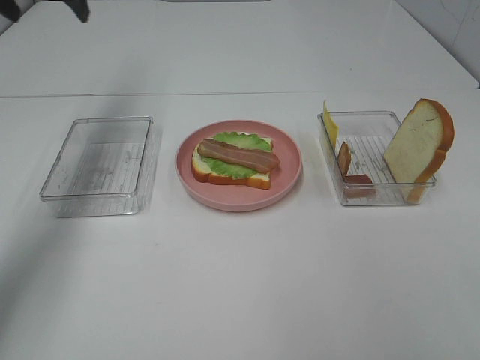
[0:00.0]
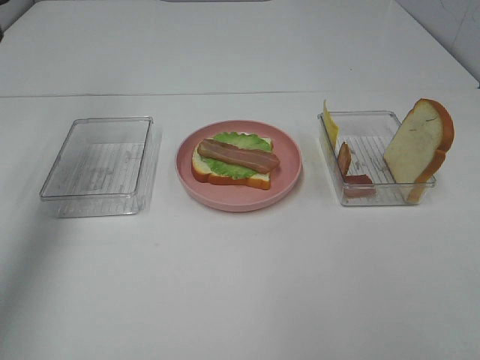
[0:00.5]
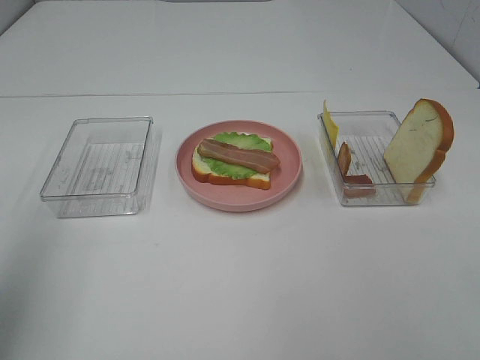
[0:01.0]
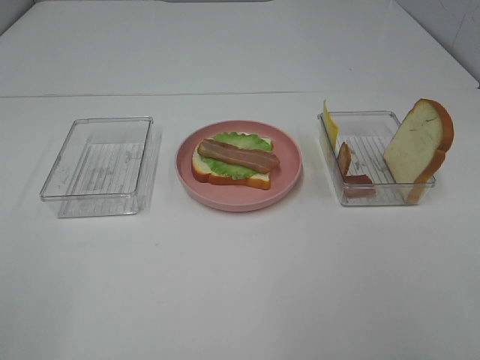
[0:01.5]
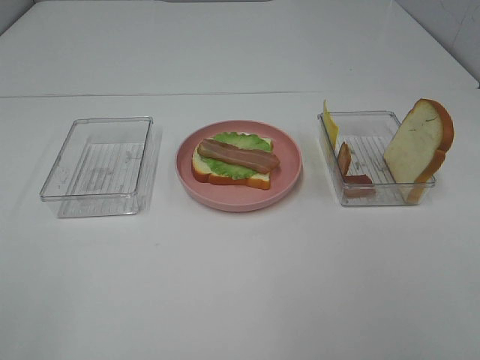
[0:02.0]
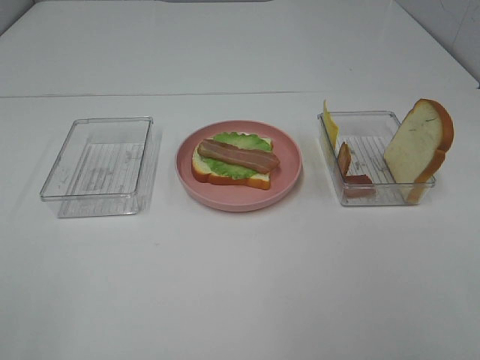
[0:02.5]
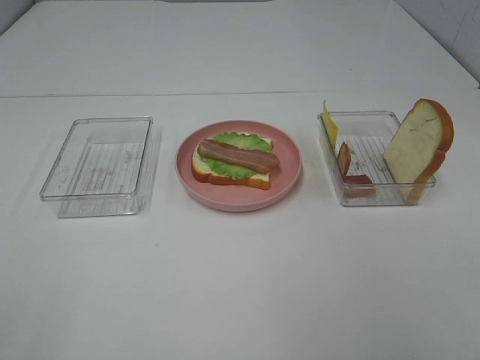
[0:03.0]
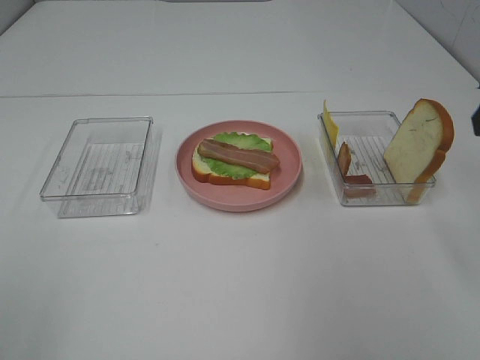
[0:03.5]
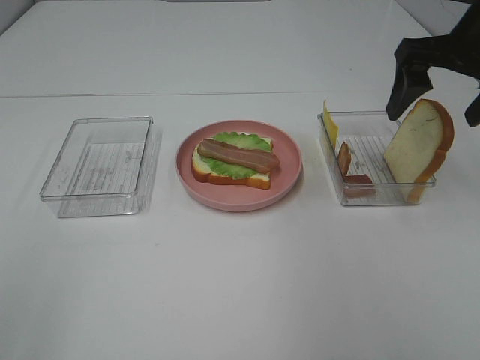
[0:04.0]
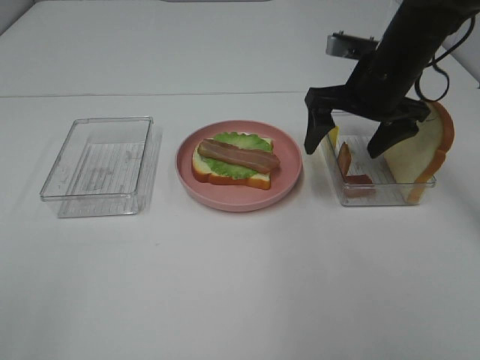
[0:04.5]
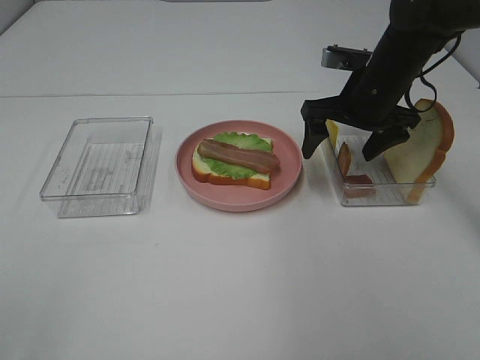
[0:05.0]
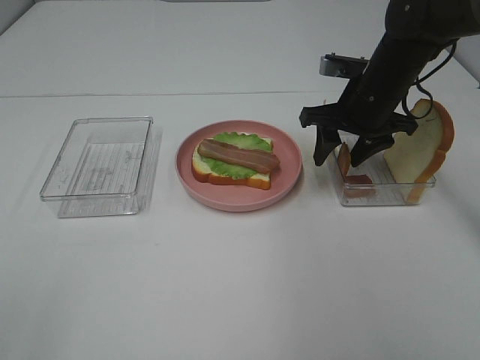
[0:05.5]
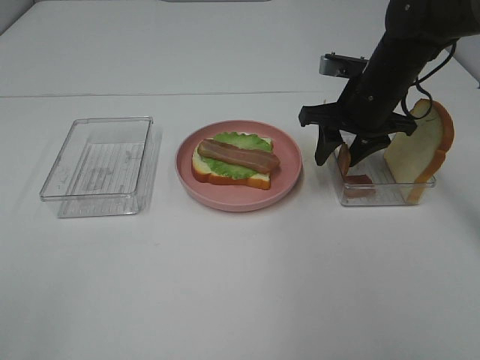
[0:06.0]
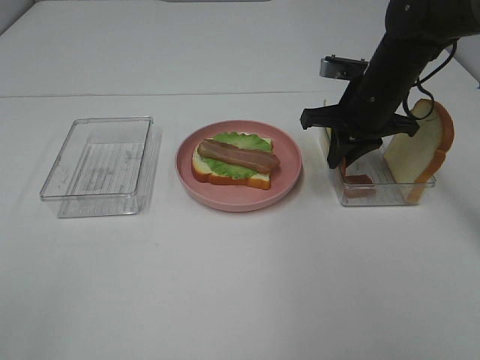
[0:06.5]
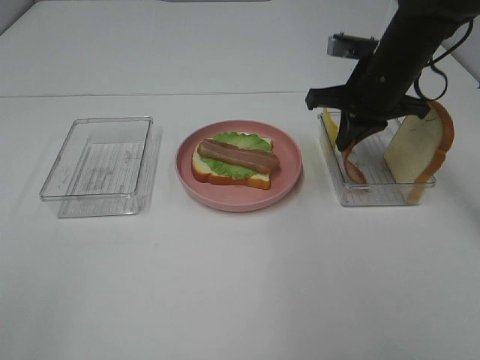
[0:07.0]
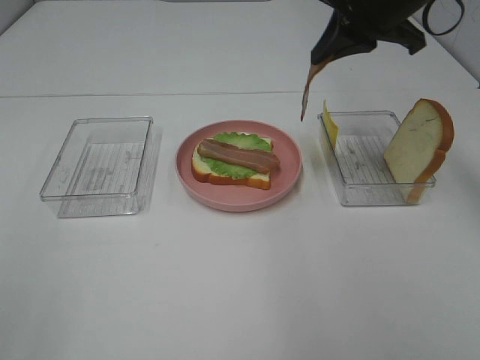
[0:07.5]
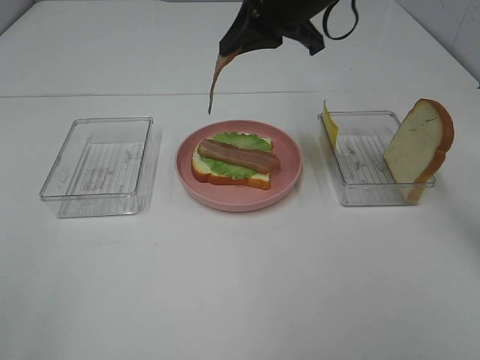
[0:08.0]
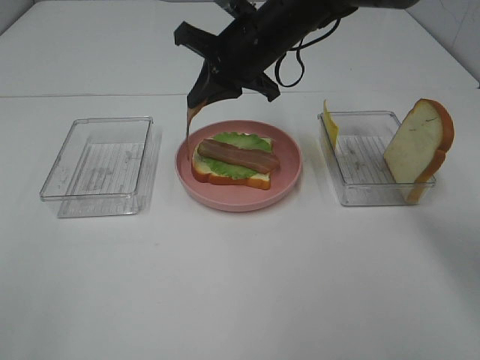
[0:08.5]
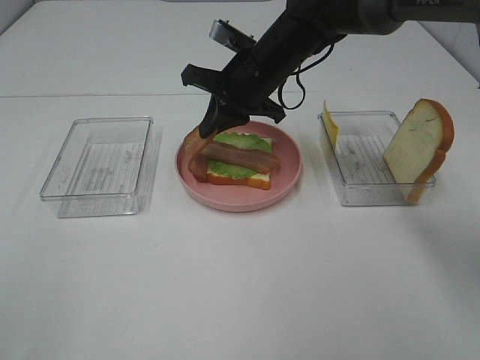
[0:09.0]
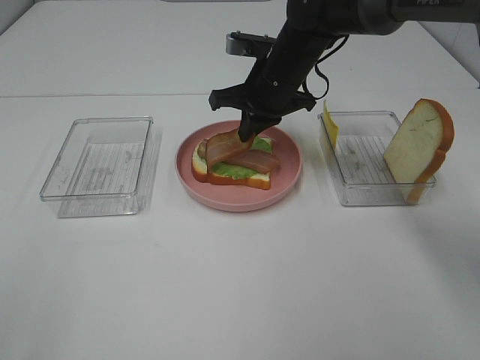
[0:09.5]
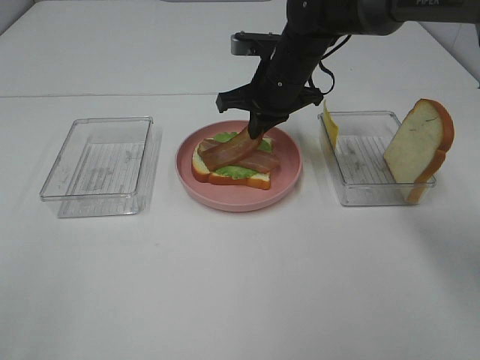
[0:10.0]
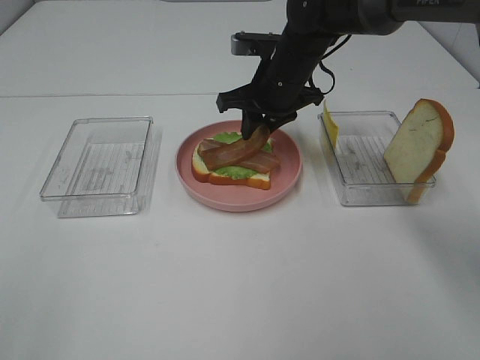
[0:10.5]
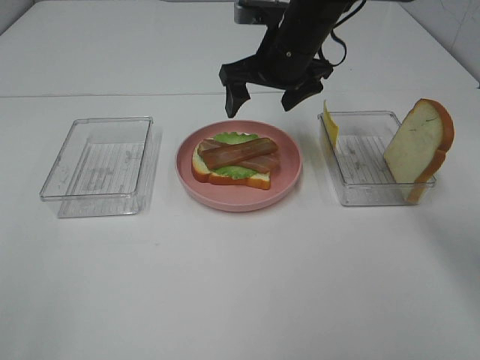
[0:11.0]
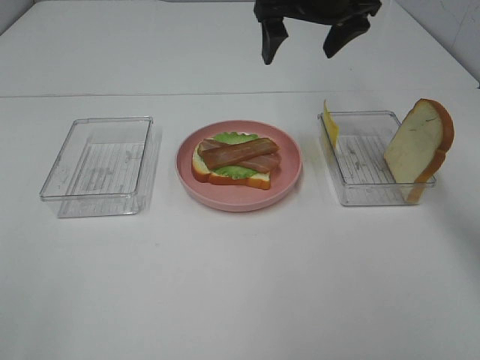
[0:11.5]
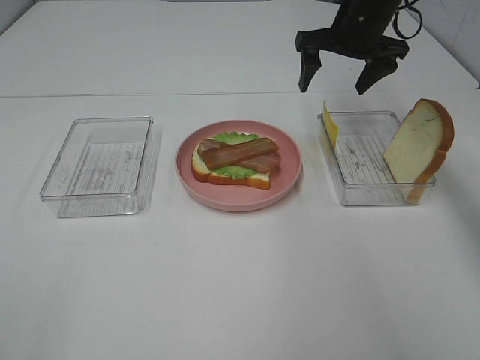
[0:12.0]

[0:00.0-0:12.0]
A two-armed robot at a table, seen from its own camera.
Task of the whole recording: Make sandwiches.
Step, 0:00.0 to 0:06.5: Right hand:grab the bacon.
Step, 0:07.0 to 0:11.0: Right hand:place bacon on bacon.
0:00.0 to 0:02.0: The left gripper is displaced backward by some 50 cm.
0:02.0 to 0:04.0: The right gripper is displaced forward by roughly 35 cm.
0:04.0 to 0:06.0: The right gripper shifts approximately 15 cm downward, forward and to the left, and closes up.
0:06.0 to 0:08.0: The right gripper shifts about 15 cm upward and to the left, and closes.
0:08.0 to 0:10.0: The right gripper goes some 10 cm downward.
0:10.0 to 0:12.0: The right gripper heads to the right and upward, covering some 10 cm, and opens its fingers.

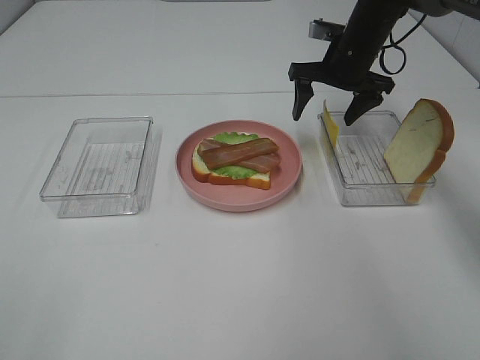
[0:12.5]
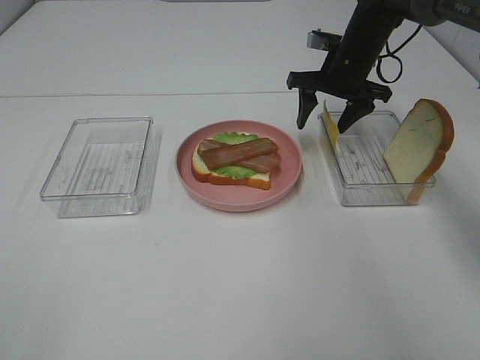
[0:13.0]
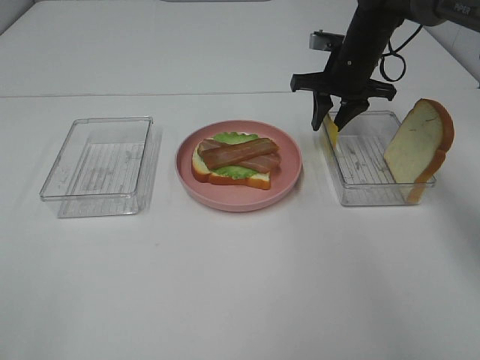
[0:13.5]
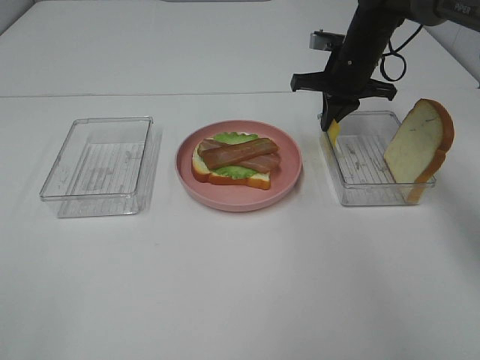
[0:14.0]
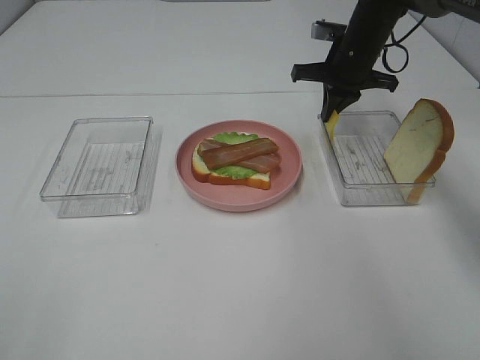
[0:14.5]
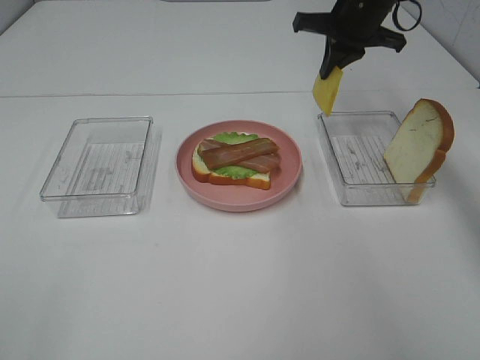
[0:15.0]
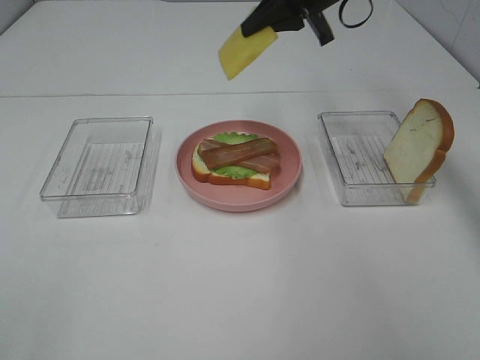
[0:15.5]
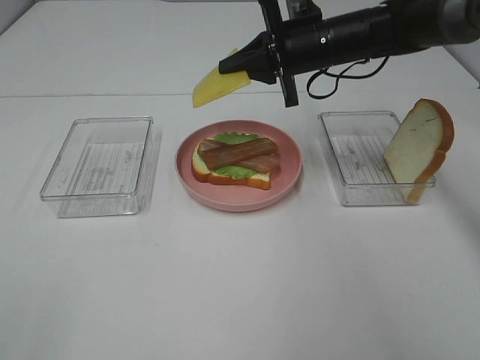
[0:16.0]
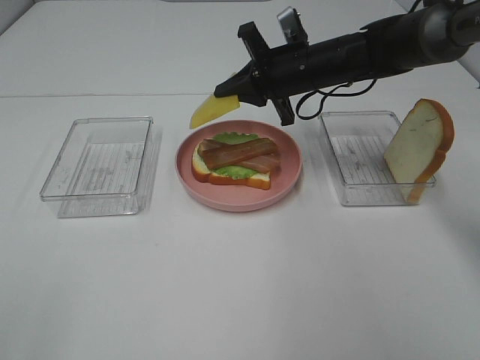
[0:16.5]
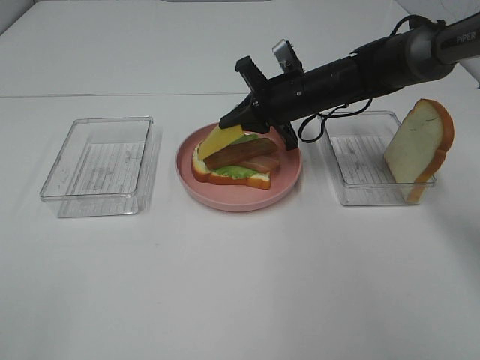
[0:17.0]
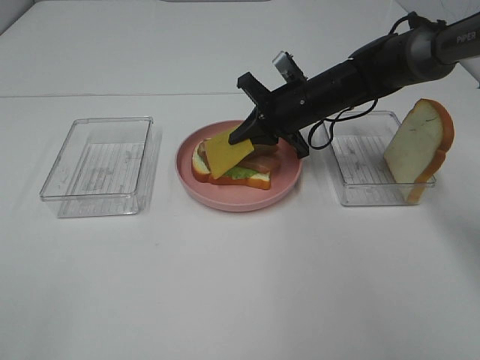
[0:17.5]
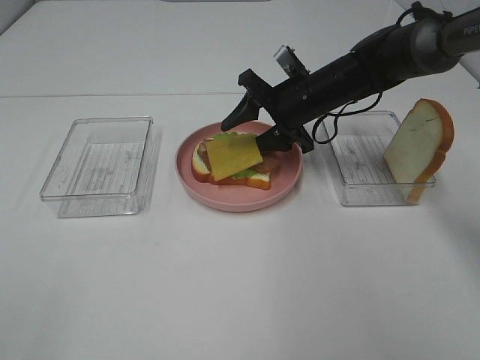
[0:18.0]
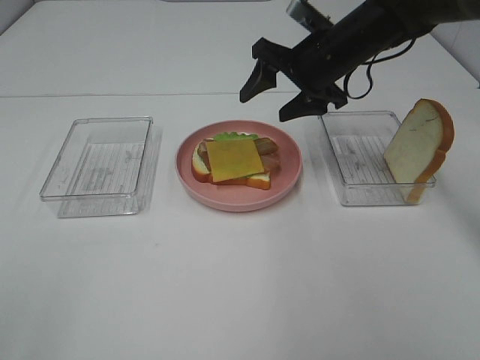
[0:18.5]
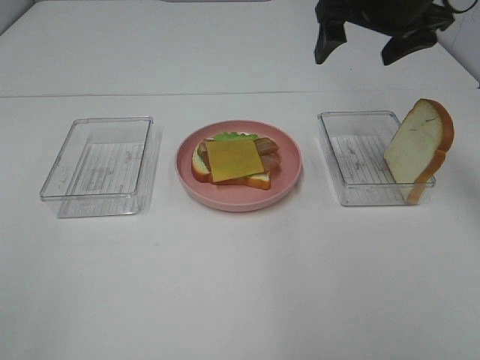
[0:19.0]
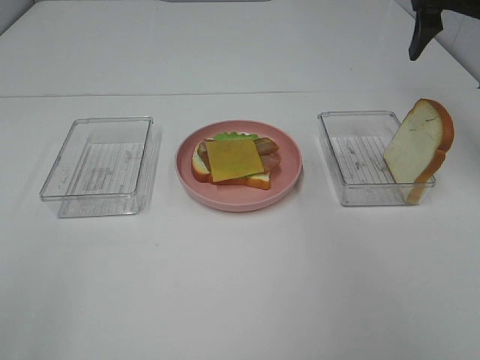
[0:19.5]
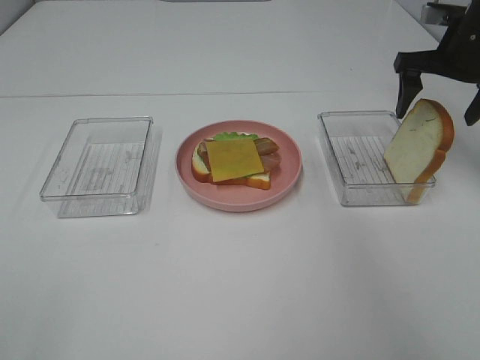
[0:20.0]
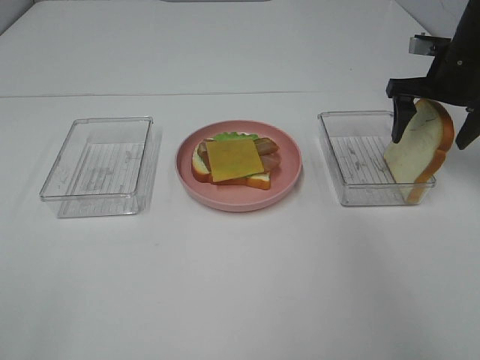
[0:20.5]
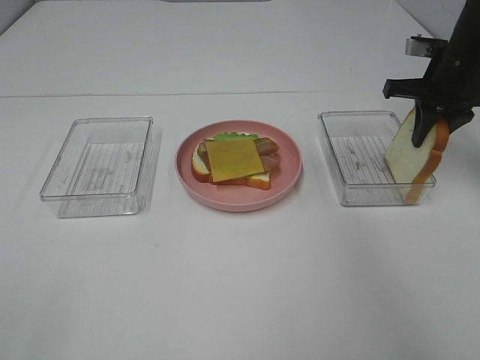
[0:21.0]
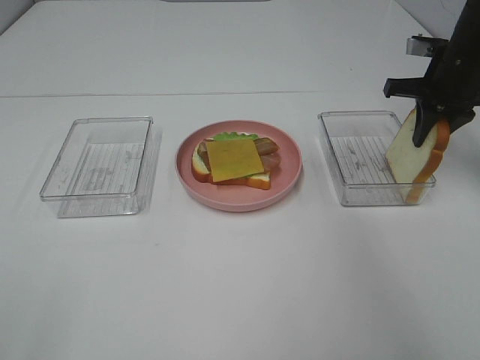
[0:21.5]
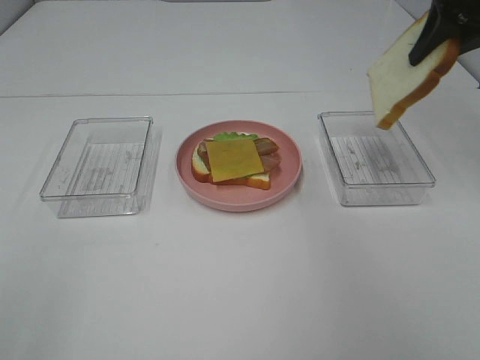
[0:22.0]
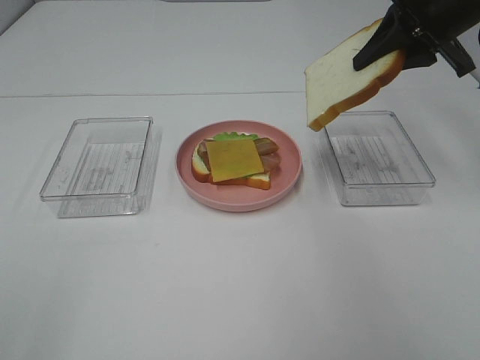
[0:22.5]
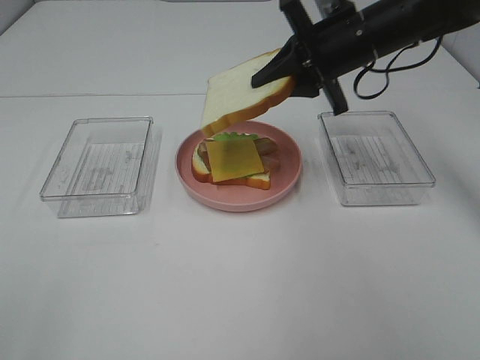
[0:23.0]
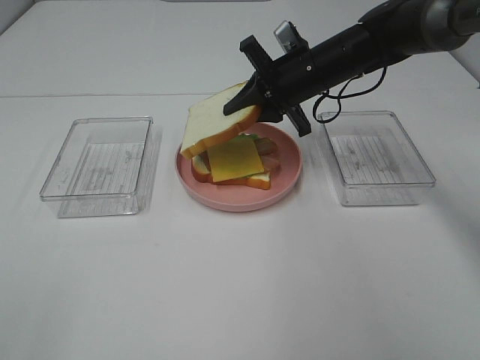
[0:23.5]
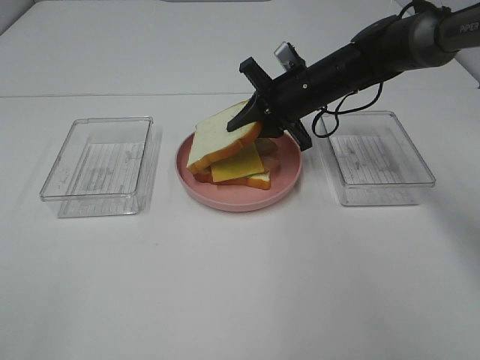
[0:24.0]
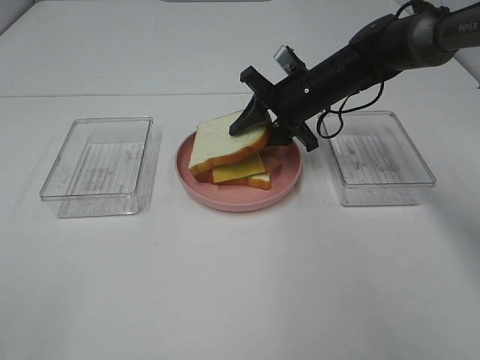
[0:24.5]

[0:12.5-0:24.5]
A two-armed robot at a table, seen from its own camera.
Task of the whole recording: Make sandwiches.
Step, 0:14.5 to 0:18.0: Right hand:place the cheese slice on top of the bacon.
Step, 0:18.5 to 0:20.5: Right hand:grab the bread slice.
0:12.5 to 0:14.5: The right gripper closes up.
0:14.5 to 0:16.5: The right gripper shifts about 10 cm to the left and backward, and moves approximately 10 cm upward and comes back.
0:16.5 to 0:18.5: The right gripper shifts by some 5 cm, and opens its fingers.
0:18.5 to 0:20.5: The right gripper heads to the right, covering some 15 cm.
0:20.5 to 0:22.5: The right gripper travels upward and to the left by about 10 cm, and closes its fingers.
0:22.5 to 0:24.5: The right gripper shifts approximately 20 cm downward, to the left and forward.

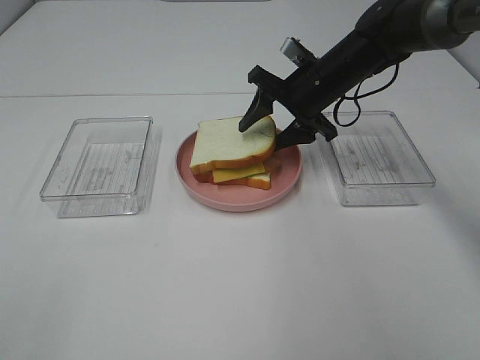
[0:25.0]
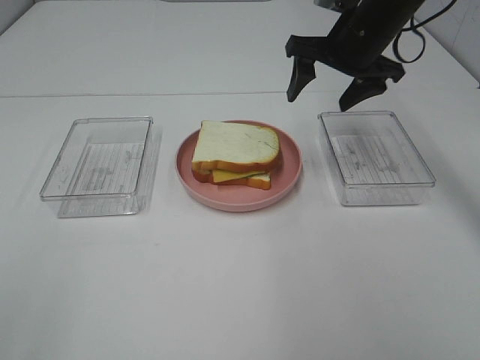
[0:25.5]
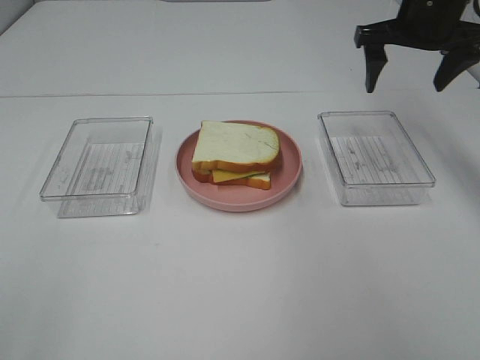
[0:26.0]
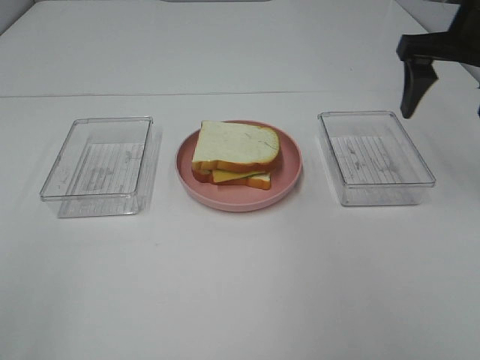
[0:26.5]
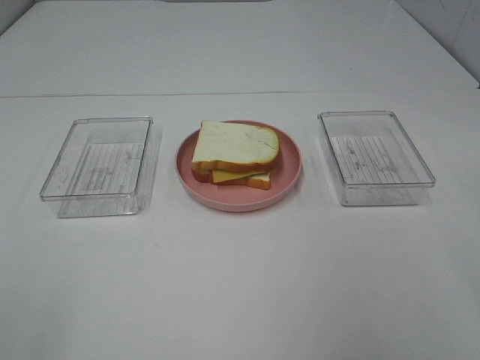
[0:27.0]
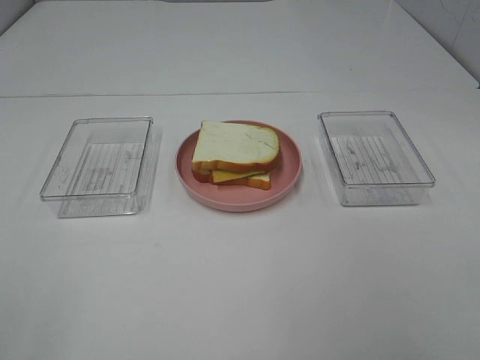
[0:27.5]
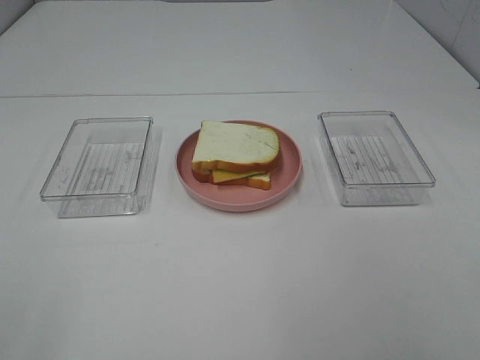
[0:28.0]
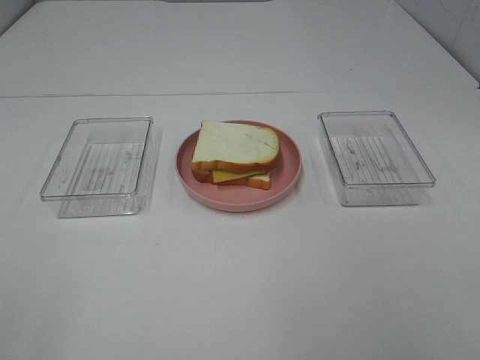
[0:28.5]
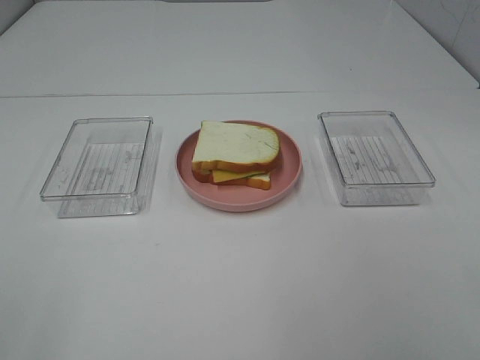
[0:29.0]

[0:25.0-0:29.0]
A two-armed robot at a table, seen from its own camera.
Task of the whole recording: Make sandwiches.
0:25.0 to 0:27.0: The right gripper shifts approximately 40 cm backward, upward and to the right.
